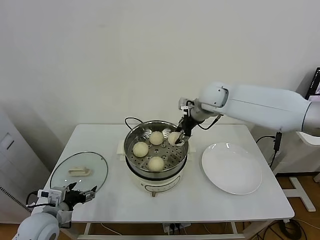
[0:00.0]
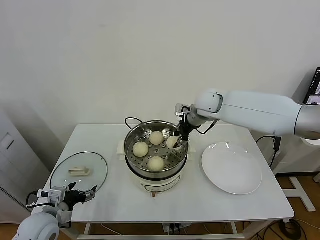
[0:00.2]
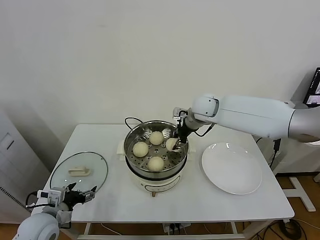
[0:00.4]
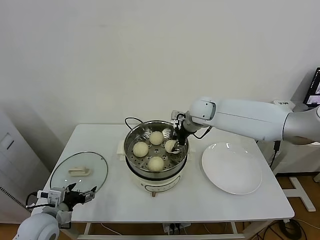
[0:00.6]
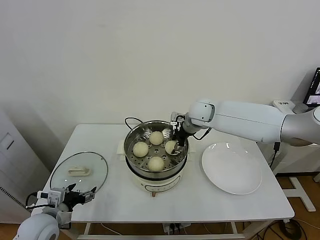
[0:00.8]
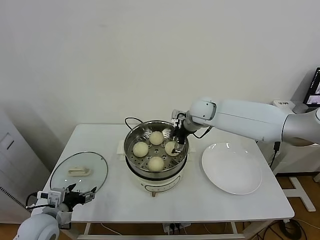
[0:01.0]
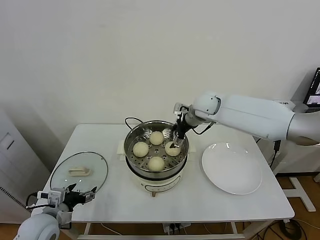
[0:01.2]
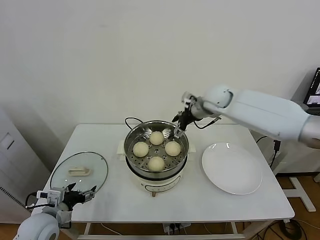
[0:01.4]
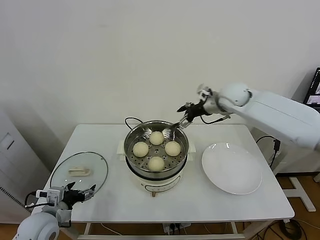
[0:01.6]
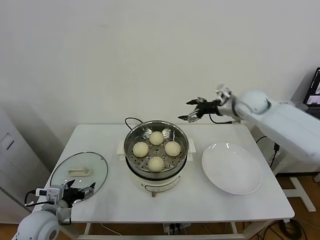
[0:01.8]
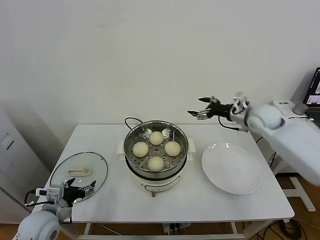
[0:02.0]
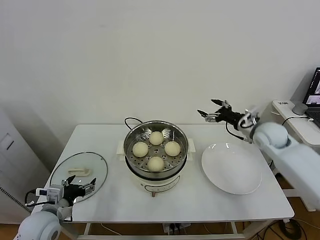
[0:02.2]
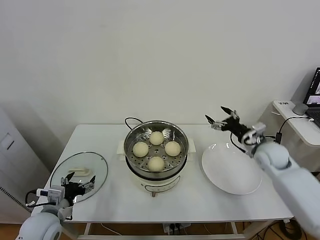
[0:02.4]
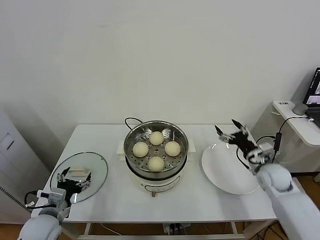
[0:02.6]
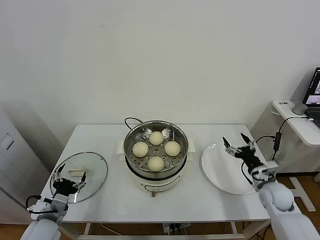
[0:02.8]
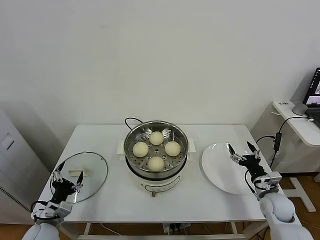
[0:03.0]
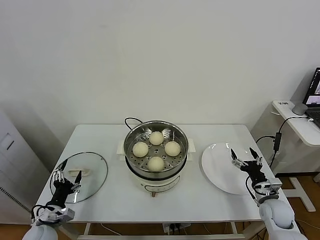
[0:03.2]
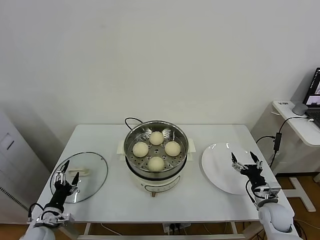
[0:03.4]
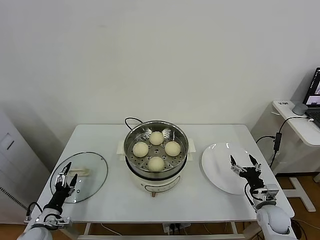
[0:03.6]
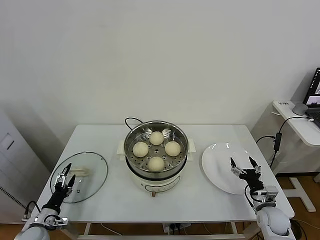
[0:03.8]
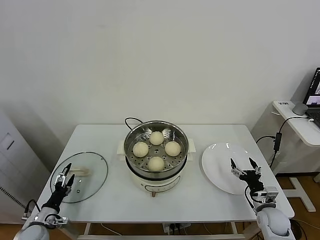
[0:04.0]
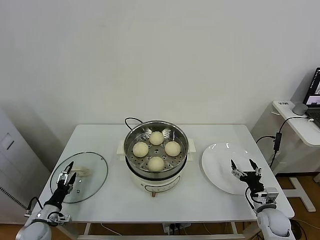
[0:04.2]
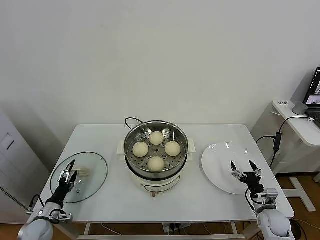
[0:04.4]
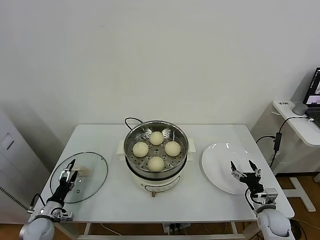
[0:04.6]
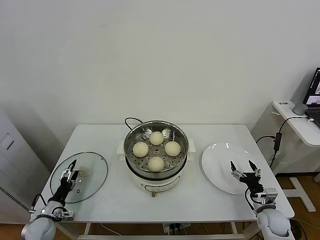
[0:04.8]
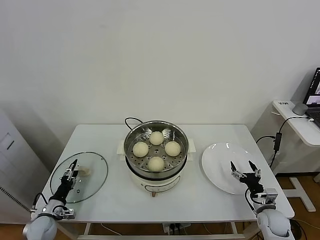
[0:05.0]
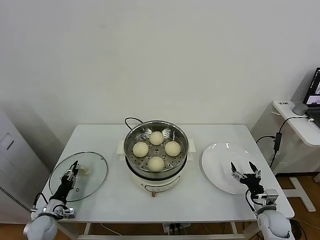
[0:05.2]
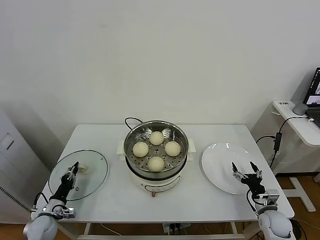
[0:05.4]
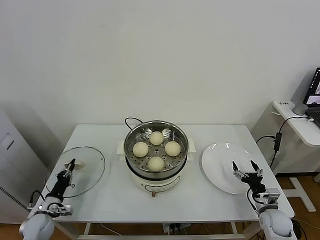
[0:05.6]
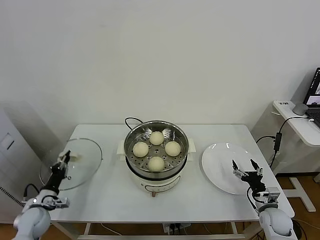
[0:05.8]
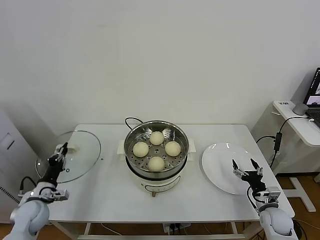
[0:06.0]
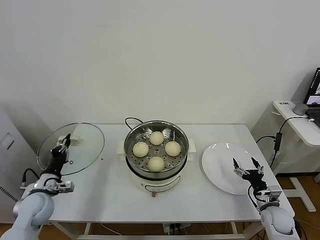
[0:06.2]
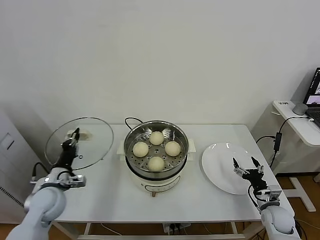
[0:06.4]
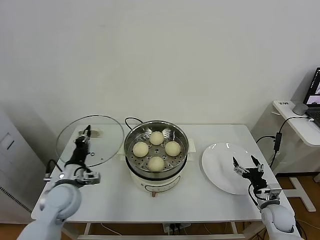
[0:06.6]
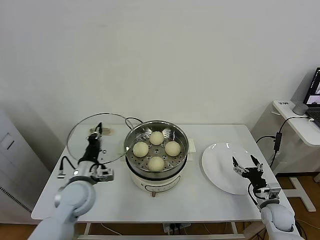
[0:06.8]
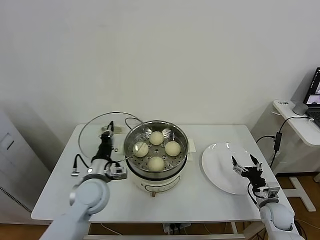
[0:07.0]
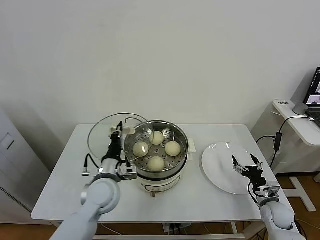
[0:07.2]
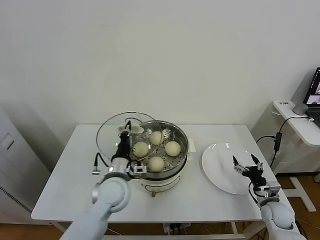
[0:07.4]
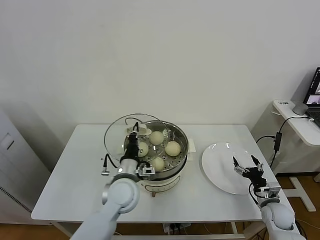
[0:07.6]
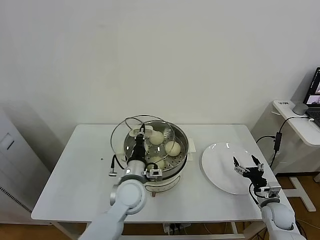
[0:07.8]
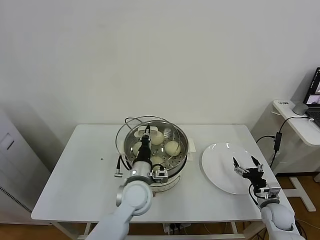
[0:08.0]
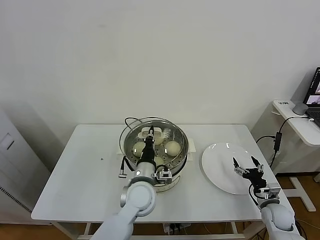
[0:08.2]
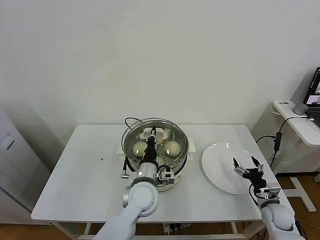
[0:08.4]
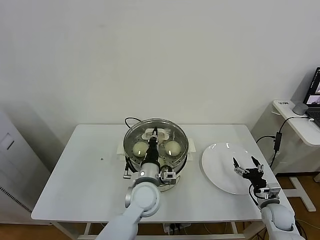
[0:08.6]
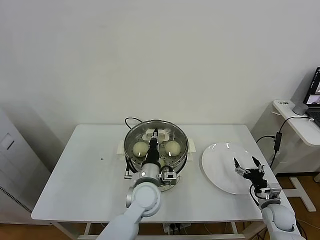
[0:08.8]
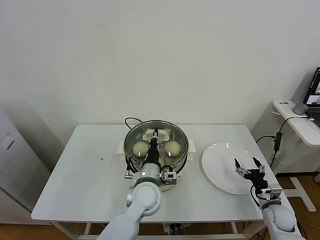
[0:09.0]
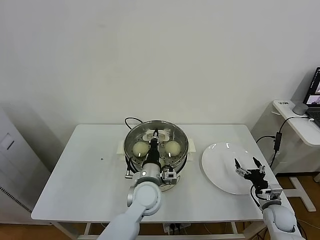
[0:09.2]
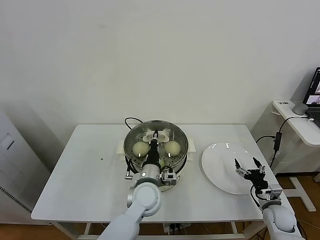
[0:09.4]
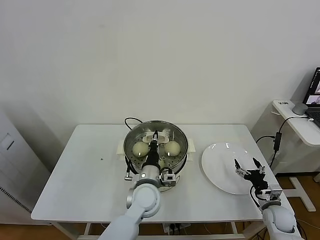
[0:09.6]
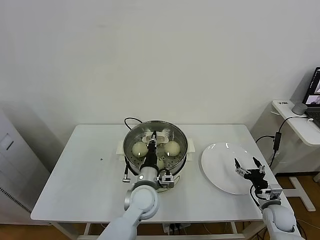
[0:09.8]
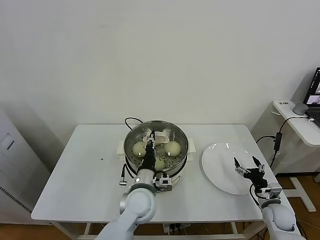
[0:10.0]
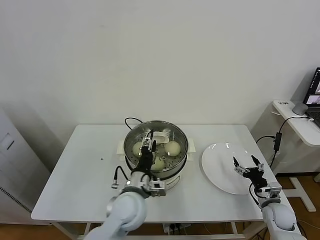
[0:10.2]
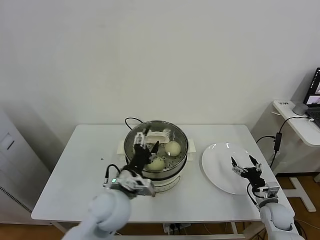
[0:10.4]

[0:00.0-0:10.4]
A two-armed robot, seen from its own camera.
Task of the whole recording: take steamed baozi put them in steamer.
Step, 0:01.4 to 0:05.6: Grasp the pot lid with left gripper.
Step, 0:05.8 to 0:10.2: Place the pot lid on the steamer with left gripper.
0:00.0 to 0:01.4: The right gripper opens up.
0:01.4 to 0:03.0: The left gripper is displaced downward by roughly 5 cm, while the right gripper heads downward, backward and to the right, covering approximately 40 cm.
0:03.0 to 0:04.4: The right gripper moves downward, roughly 5 cm, while the left gripper is displaced downward and to the left by some 15 cm.
0:04.4 to 0:06.0: The left gripper travels upward by some 10 cm, and closes its fingers.
0:06.0 to 0:07.4: The left gripper is displaced to the right and upward by approximately 30 cm.
0:07.4 to 0:09.0: The left gripper shifts some 10 cm to the right.
0:09.0 to 0:10.4: The left gripper travels to the left, backward and upward by approximately 10 cm, and opens up.

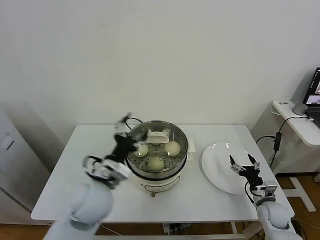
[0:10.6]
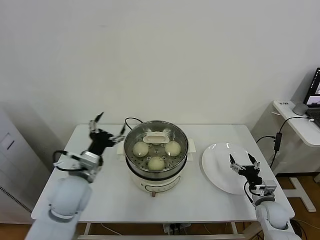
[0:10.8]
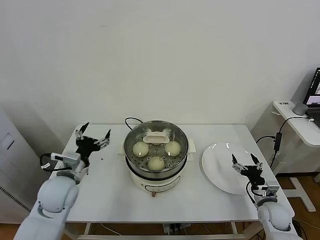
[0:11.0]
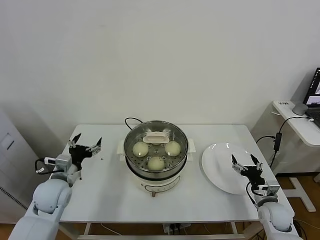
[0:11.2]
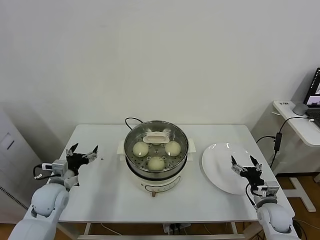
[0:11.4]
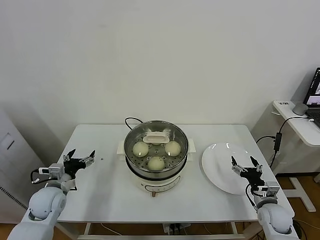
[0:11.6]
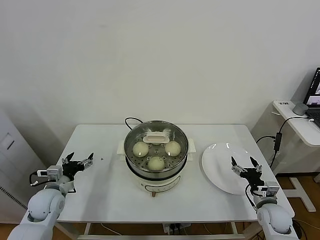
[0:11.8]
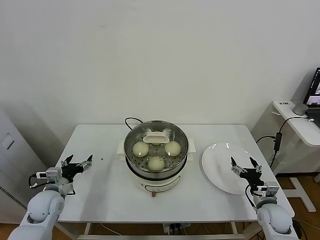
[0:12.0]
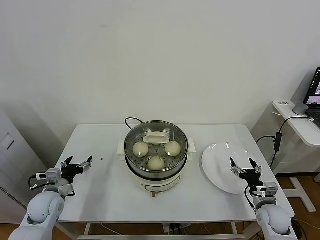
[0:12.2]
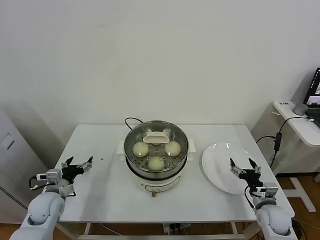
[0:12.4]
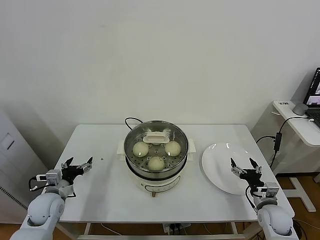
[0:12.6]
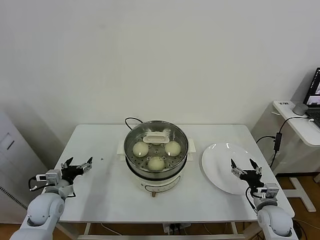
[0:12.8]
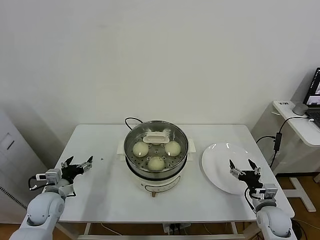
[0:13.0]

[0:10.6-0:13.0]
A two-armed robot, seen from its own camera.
Task of the whole recording: take steamed baozi put them in steamer.
0:10.6 to 0:11.8: The left gripper travels to the left and downward by approximately 25 cm.
0:11.8 to 0:13.0: The grippers move only a little.

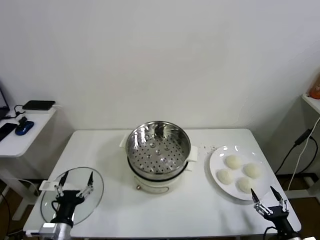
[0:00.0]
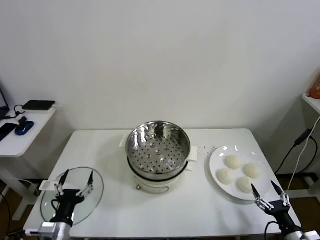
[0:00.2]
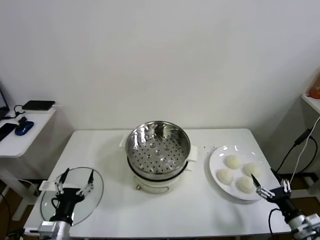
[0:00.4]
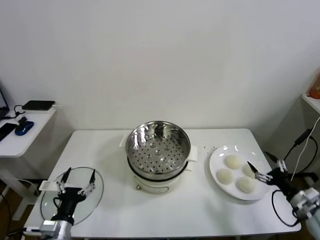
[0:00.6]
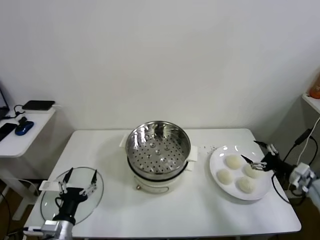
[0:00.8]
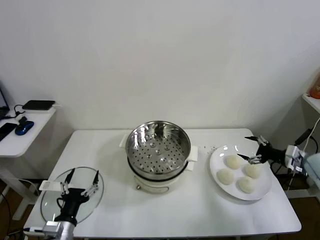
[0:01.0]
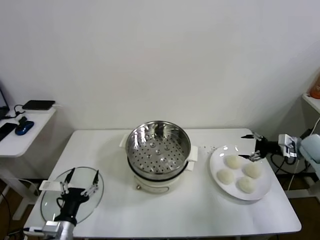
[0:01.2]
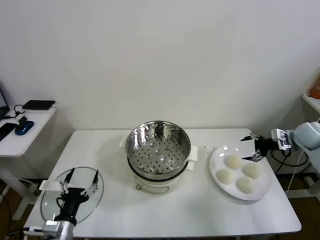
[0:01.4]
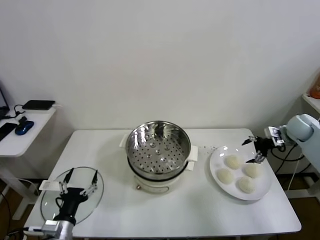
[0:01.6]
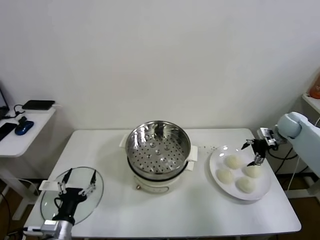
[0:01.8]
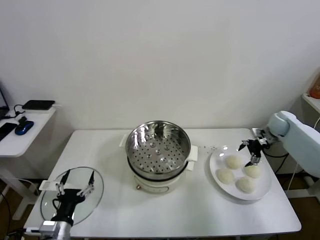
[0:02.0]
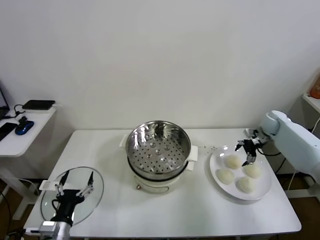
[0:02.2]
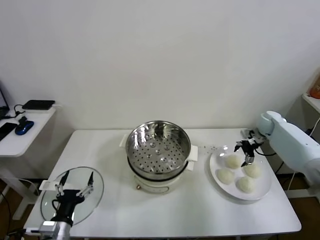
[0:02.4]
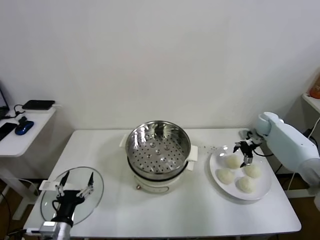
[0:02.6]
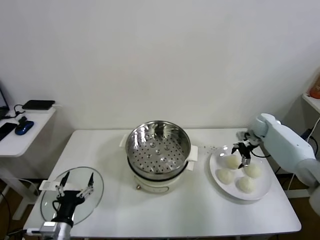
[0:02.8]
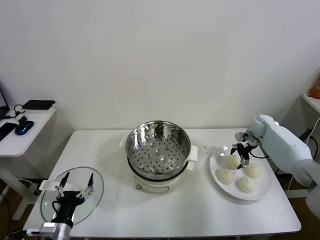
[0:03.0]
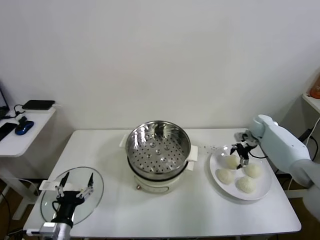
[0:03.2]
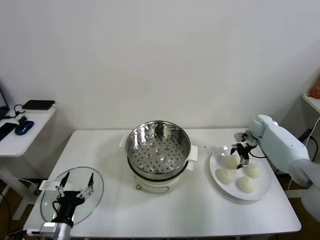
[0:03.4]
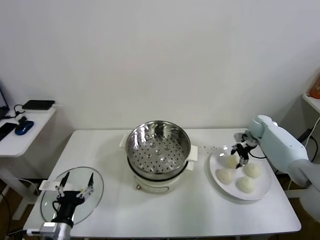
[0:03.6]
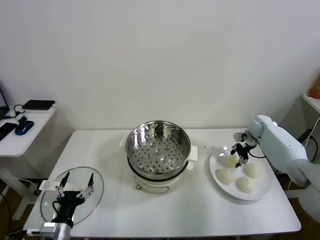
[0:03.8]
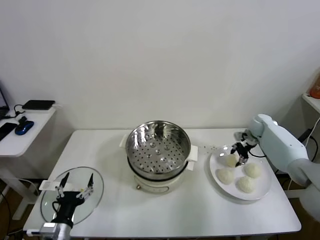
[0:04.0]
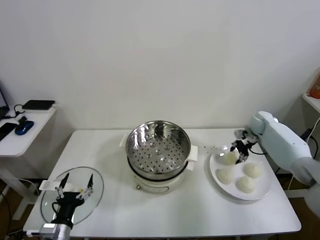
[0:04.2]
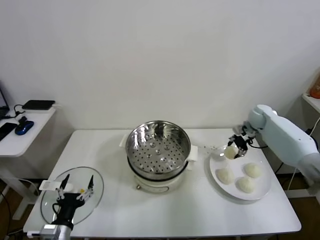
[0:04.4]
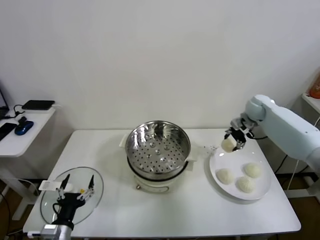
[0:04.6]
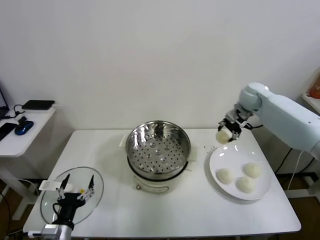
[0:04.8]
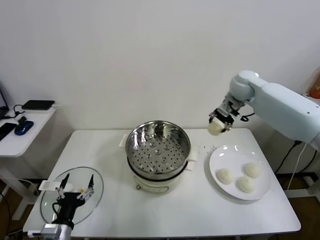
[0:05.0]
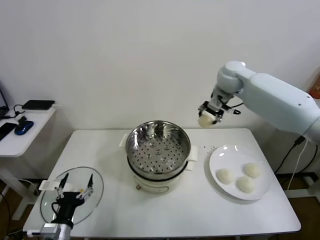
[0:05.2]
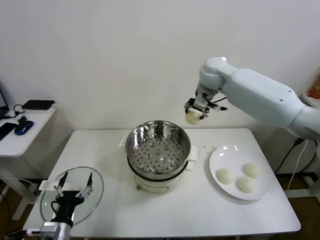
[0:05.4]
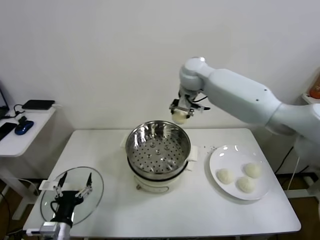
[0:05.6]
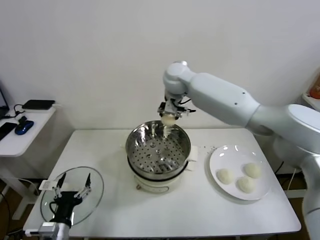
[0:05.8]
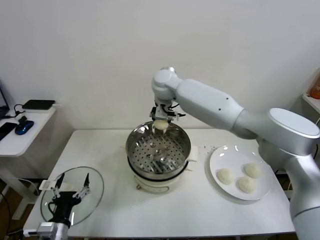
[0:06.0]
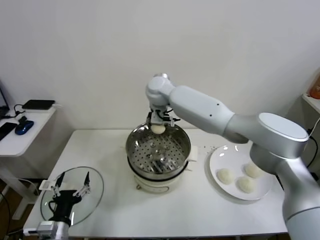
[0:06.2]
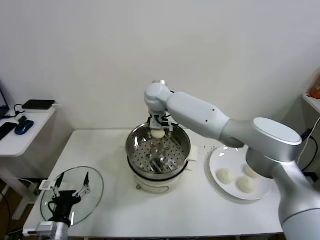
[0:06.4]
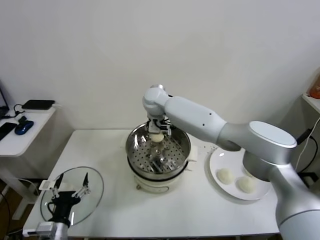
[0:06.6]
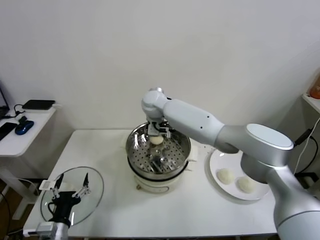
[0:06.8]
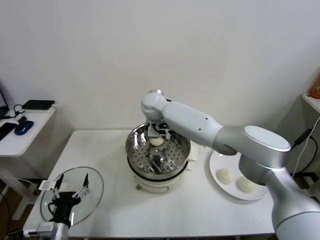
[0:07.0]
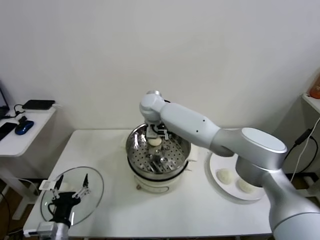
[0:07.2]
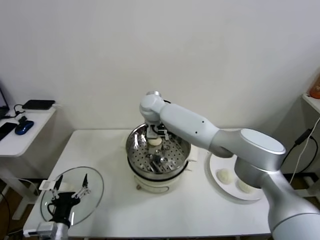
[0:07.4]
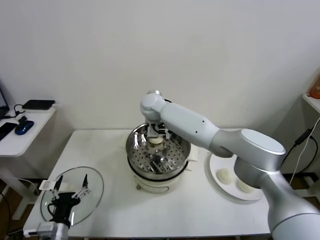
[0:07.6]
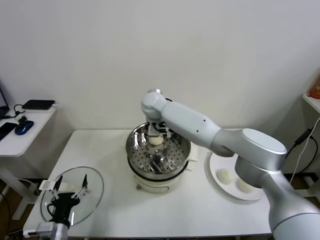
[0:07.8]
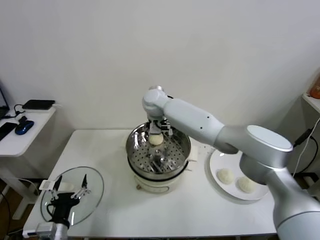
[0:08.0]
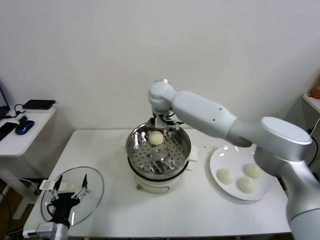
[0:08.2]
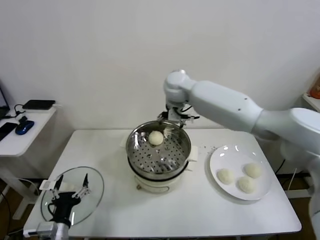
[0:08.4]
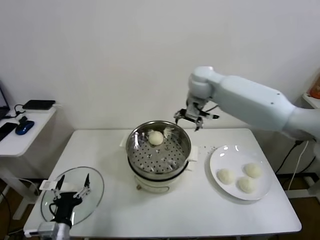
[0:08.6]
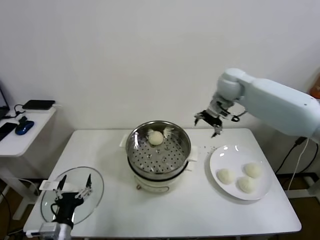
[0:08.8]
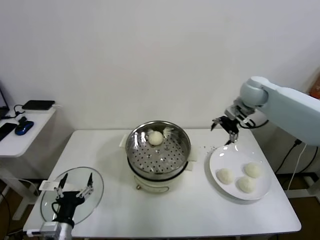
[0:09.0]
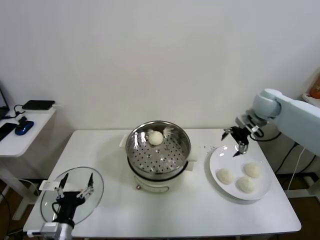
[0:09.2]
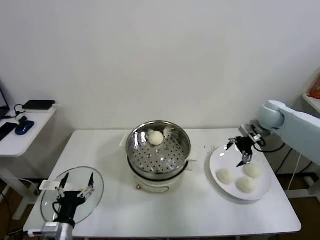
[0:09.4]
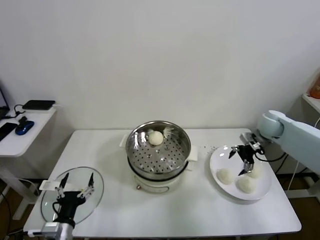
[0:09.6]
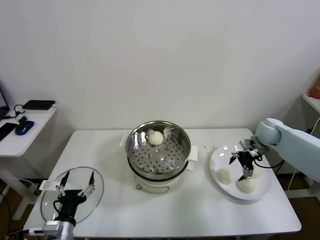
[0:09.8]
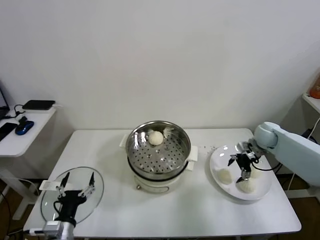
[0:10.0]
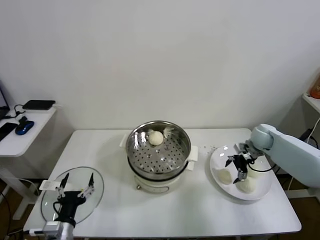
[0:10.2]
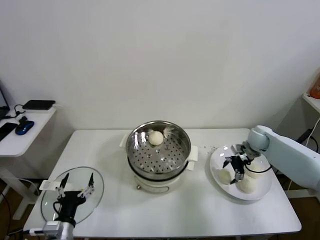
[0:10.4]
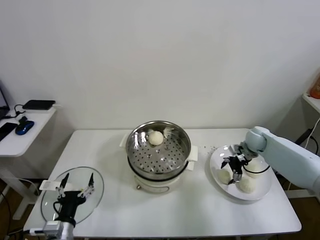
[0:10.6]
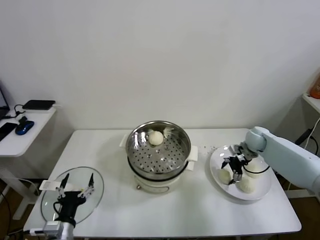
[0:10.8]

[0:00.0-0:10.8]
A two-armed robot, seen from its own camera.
Task of the whole recording: take steamed baozi put them in steamer.
Step, 0:00.0 to 0:03.6: Grasp the baozi in the plate with right gripper.
Step, 0:03.8 to 0:08.0: Place the baozi on the steamer with right gripper.
0:01.6 to 0:03.0: The right gripper travels downward, to the left and forward by approximately 10 cm.
0:03.0 to 0:04.6: The right gripper is displaced upward and to the left by some 15 cm, and closes its fingers.
0:04.6 to 0:06.2: The right gripper heads to the left, covering about 35 cm.
0:06.2 to 0:07.8: The right gripper opens its fingers.
0:07.8 to 0:09.2: The right gripper heads to the right, covering approximately 40 cm.
0:09.2 to 0:10.8: The right gripper is displaced downward by approximately 15 cm.
